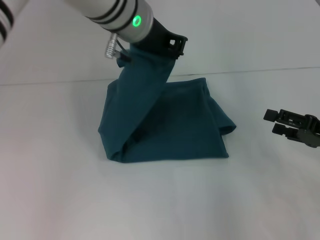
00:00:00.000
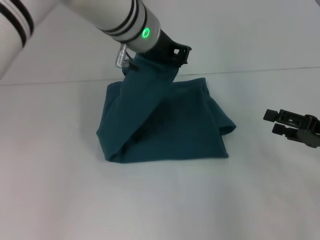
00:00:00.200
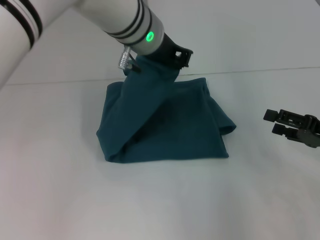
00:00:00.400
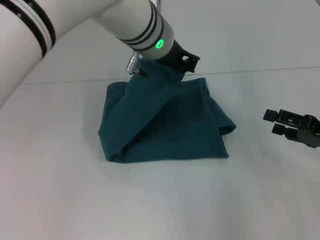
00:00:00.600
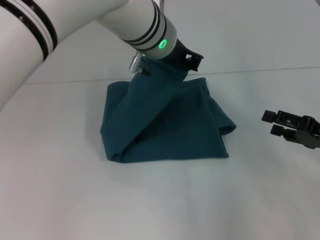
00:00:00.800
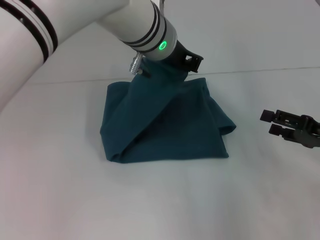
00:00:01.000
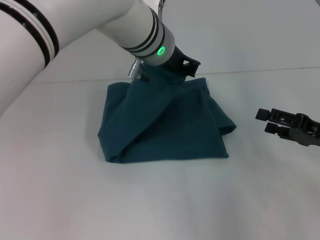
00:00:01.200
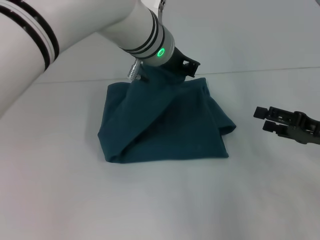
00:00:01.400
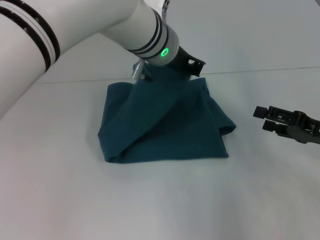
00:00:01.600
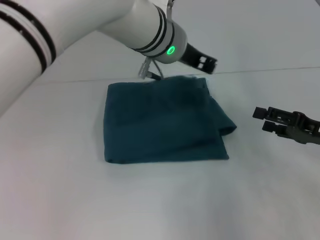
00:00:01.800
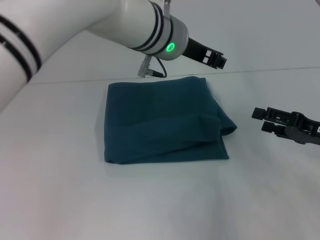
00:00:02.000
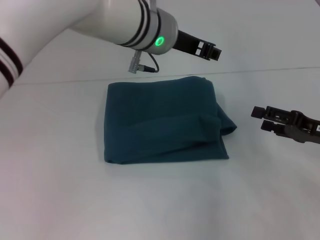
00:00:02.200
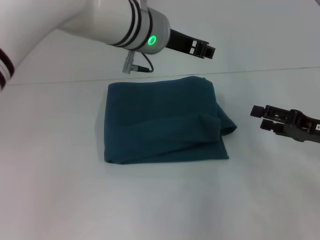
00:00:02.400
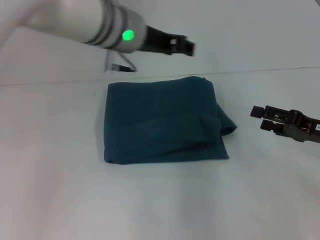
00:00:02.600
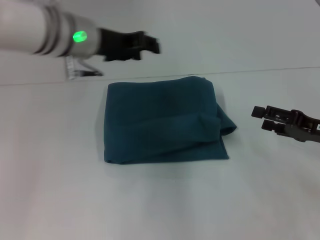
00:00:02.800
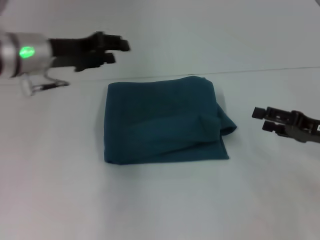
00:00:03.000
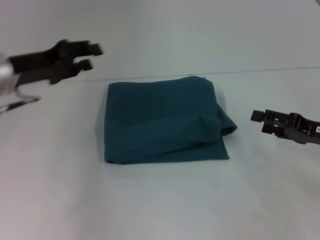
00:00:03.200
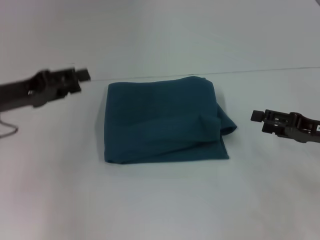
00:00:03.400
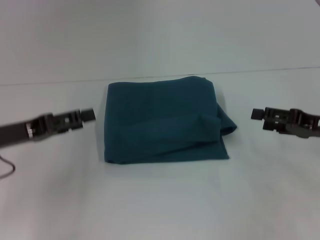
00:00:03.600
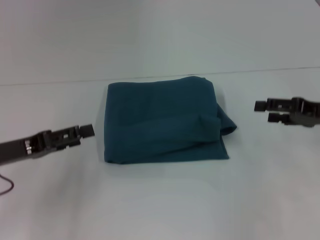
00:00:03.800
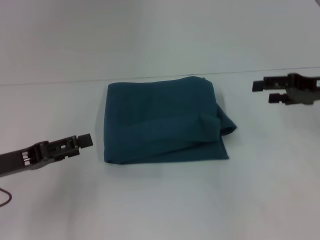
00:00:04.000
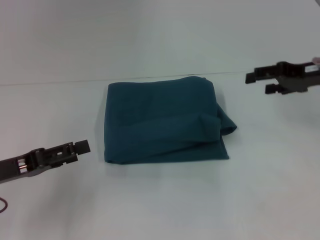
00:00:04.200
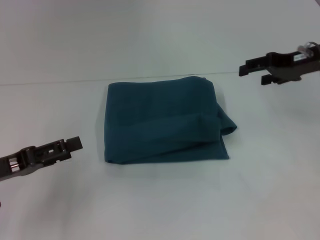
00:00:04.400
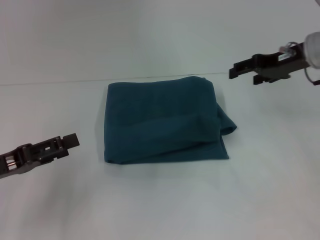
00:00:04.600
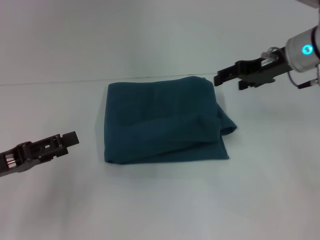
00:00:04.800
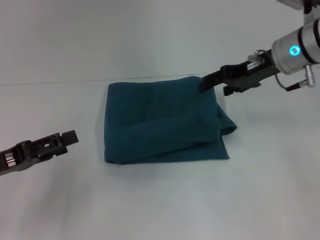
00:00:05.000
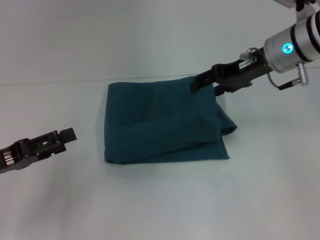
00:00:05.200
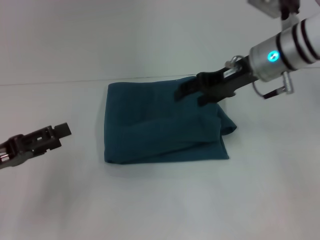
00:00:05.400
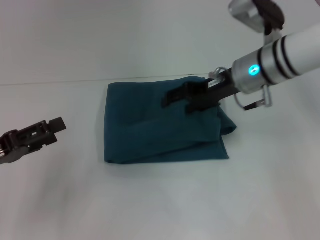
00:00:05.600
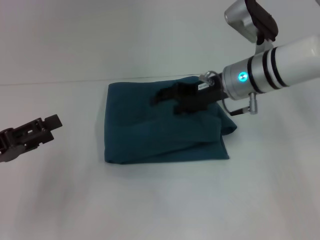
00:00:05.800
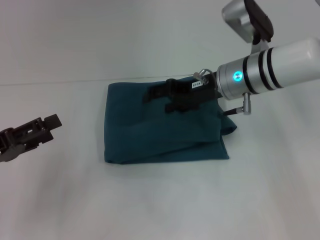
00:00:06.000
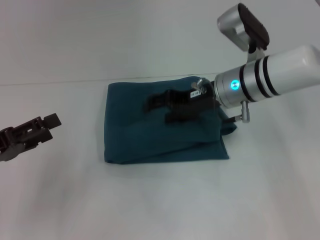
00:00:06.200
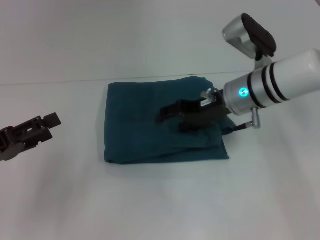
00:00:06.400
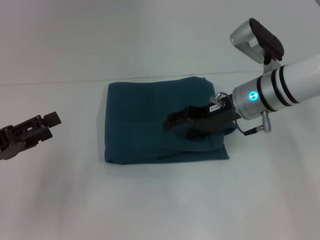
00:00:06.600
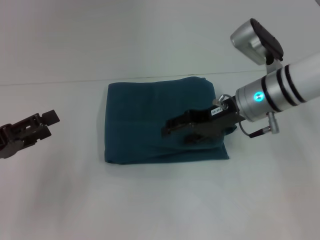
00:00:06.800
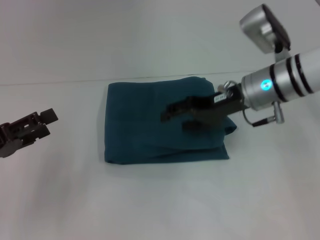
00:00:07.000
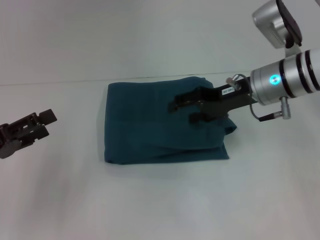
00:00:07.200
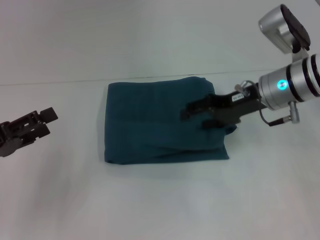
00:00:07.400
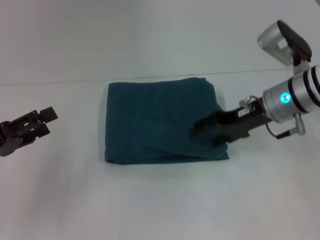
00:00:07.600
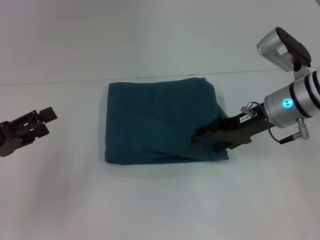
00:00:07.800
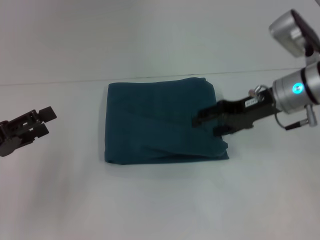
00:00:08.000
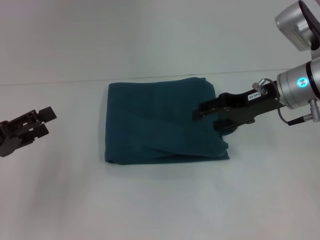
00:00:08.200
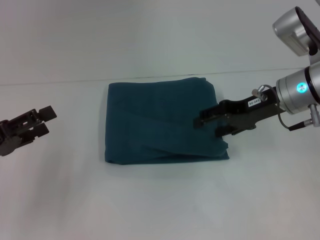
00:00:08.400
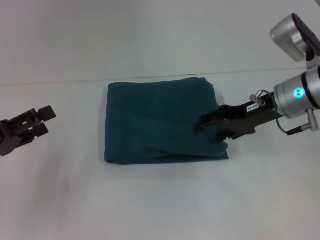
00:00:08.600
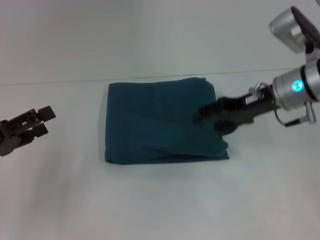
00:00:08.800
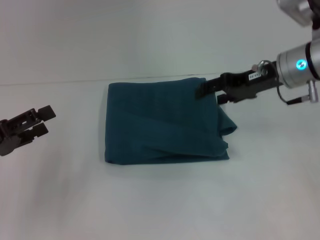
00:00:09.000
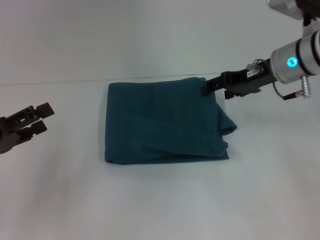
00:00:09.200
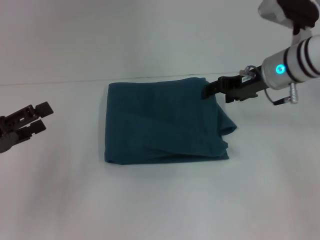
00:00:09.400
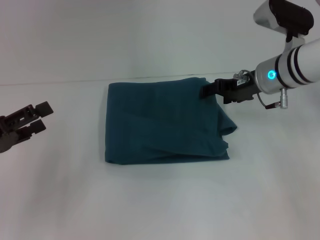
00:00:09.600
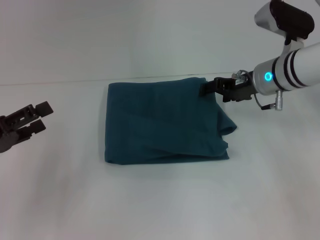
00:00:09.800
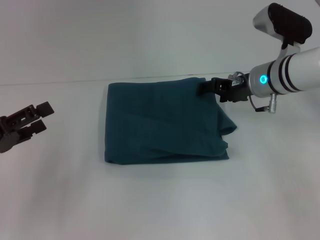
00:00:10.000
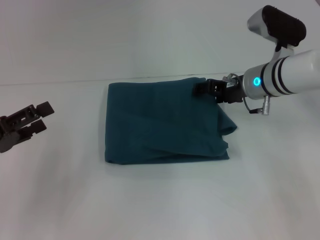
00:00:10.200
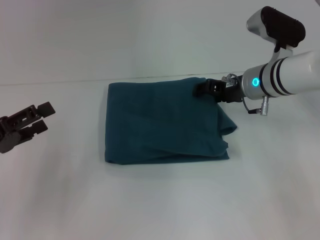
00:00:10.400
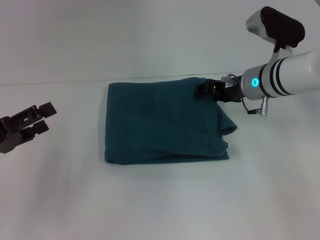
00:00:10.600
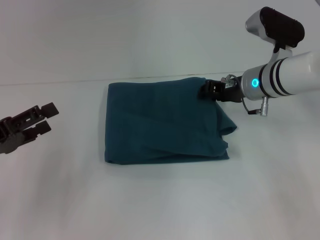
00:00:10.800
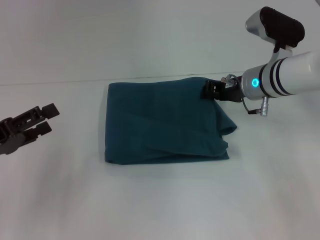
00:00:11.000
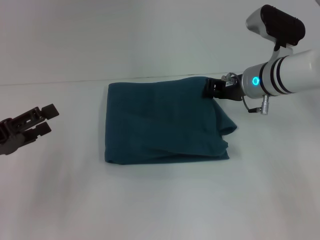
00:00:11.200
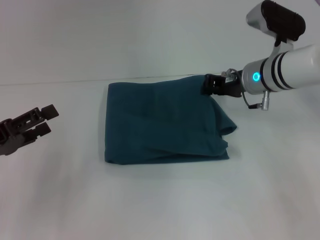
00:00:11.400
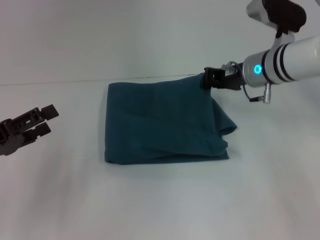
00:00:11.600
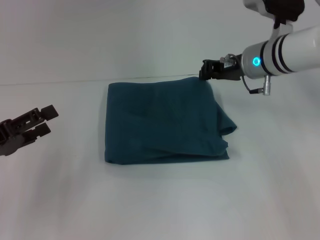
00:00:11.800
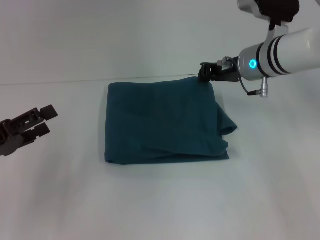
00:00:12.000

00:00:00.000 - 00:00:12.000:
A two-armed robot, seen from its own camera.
Step, 00:00:00.000 - 00:00:02.000: Fold the clothes to the left.
00:00:00.000 - 00:00:01.600: The left gripper changes place by some 5 cm.
00:00:01.600 - 00:00:03.000: The left gripper travels to the left by about 20 cm, and opens its fingers.
00:00:03.000 - 00:00:04.400: The left gripper travels backward, to the left and downward by approximately 20 cm, and opens. The right gripper travels forward and upward by approximately 15 cm.
00:00:04.400 - 00:00:06.000: The right gripper is displaced to the left by about 15 cm.
00:00:06.000 - 00:00:07.600: The right gripper travels to the right by some 5 cm.
00:00:07.600 - 00:00:09.000: The right gripper ends up some 5 cm from where it was.
00:00:09.000 - 00:00:10.400: The right gripper shifts roughly 5 cm downward.
00:00:10.400 - 00:00:12.000: The right gripper closes.

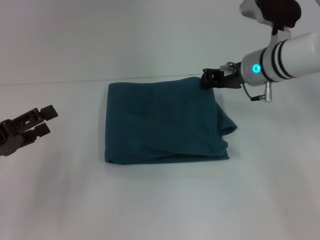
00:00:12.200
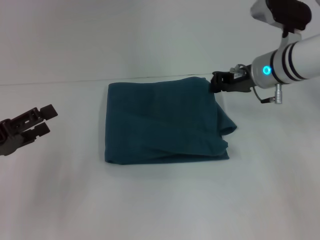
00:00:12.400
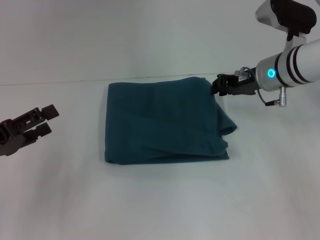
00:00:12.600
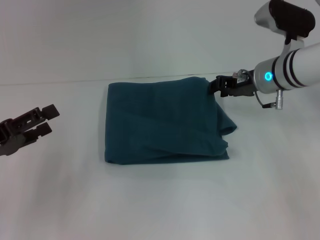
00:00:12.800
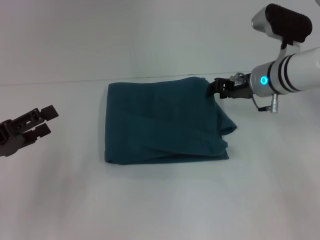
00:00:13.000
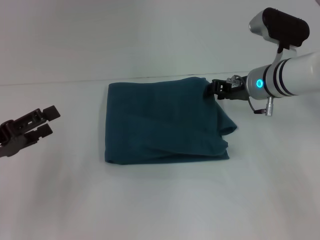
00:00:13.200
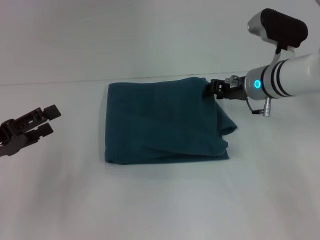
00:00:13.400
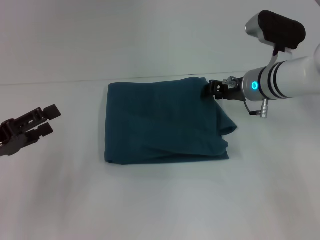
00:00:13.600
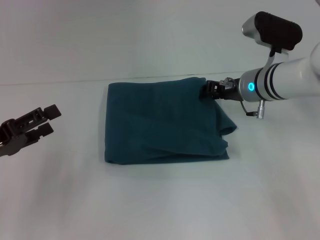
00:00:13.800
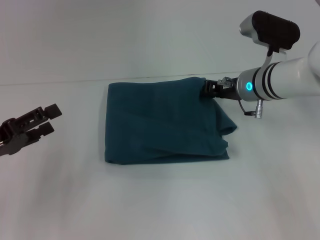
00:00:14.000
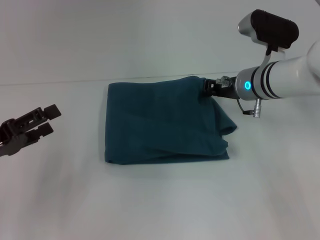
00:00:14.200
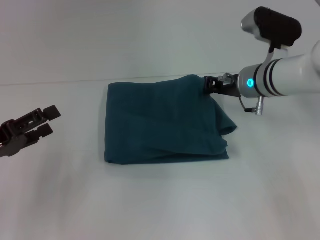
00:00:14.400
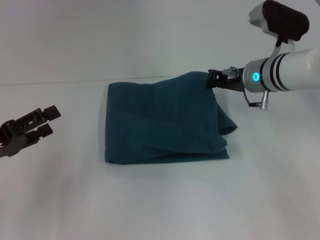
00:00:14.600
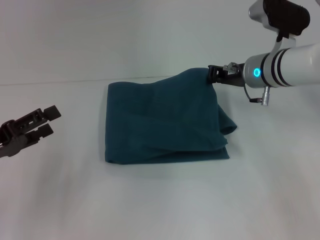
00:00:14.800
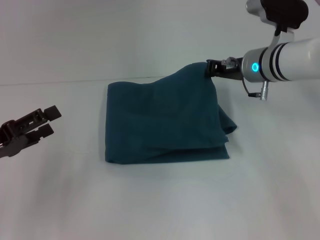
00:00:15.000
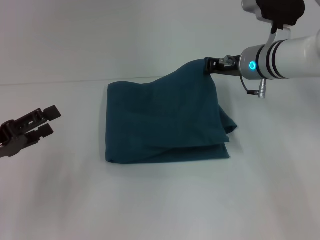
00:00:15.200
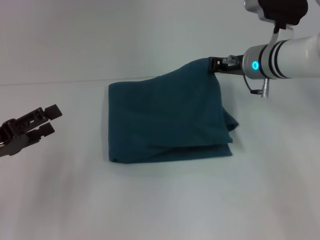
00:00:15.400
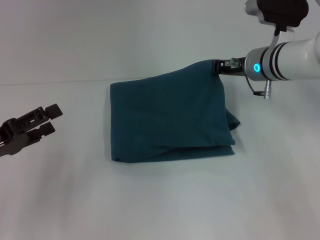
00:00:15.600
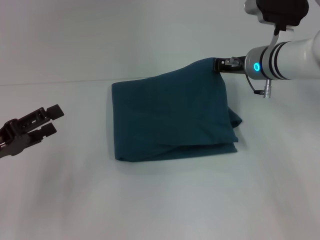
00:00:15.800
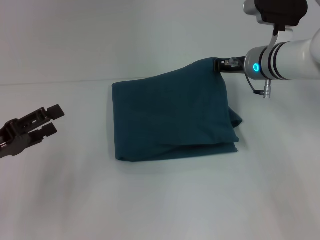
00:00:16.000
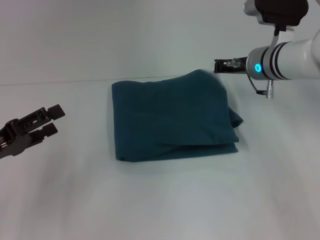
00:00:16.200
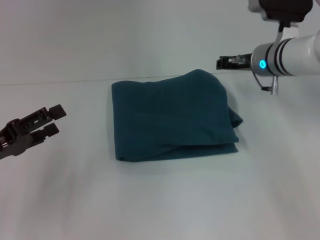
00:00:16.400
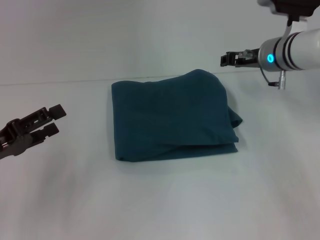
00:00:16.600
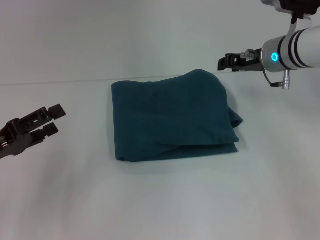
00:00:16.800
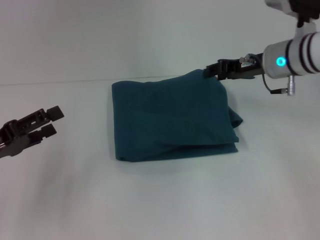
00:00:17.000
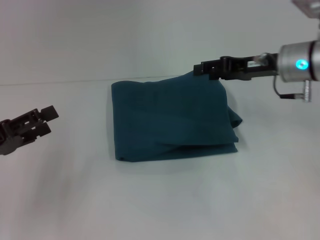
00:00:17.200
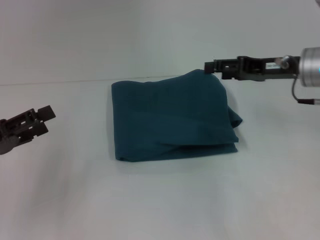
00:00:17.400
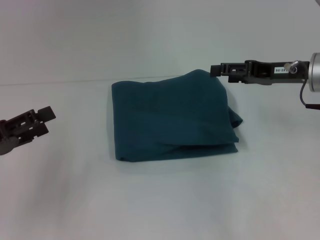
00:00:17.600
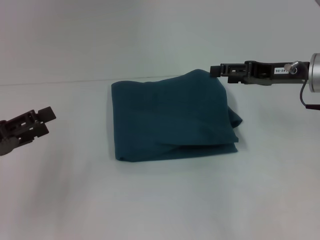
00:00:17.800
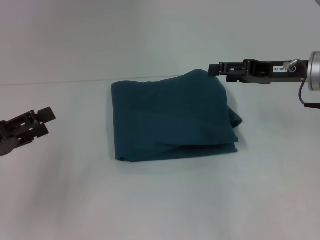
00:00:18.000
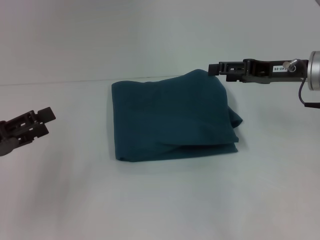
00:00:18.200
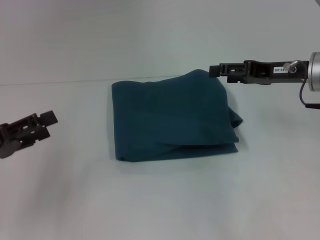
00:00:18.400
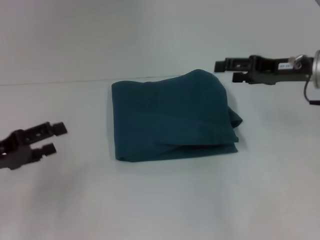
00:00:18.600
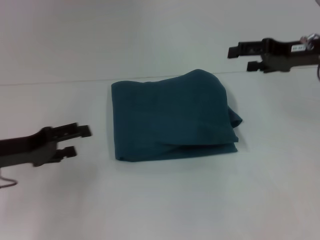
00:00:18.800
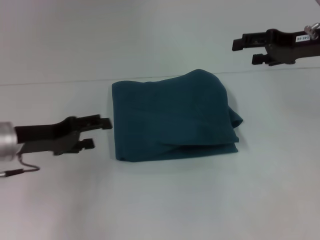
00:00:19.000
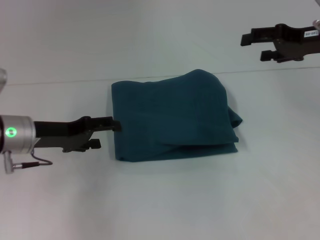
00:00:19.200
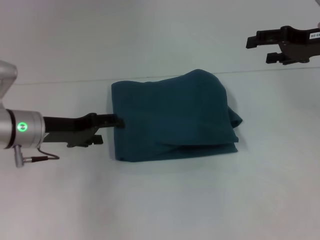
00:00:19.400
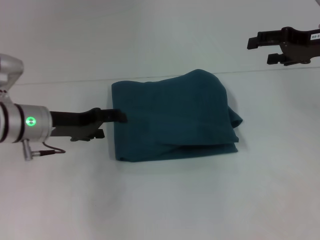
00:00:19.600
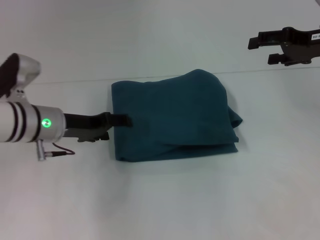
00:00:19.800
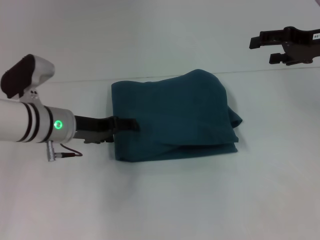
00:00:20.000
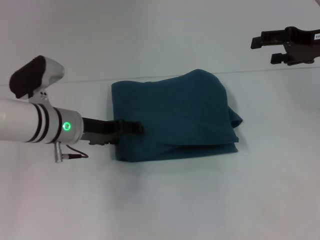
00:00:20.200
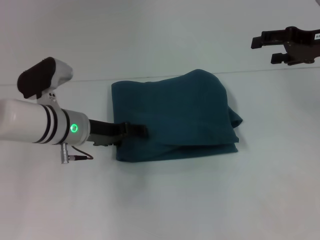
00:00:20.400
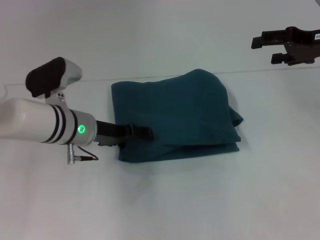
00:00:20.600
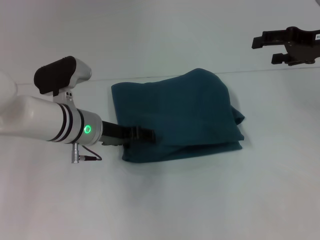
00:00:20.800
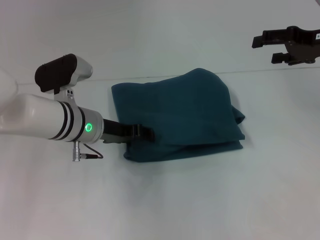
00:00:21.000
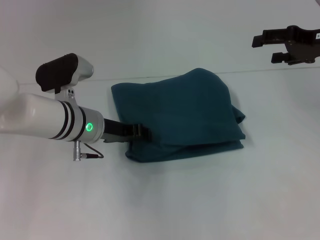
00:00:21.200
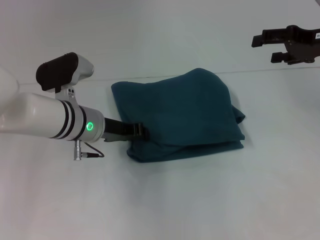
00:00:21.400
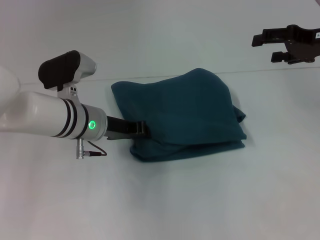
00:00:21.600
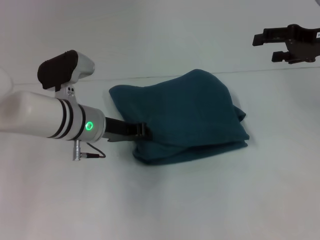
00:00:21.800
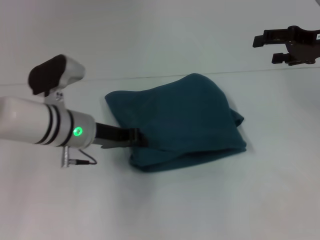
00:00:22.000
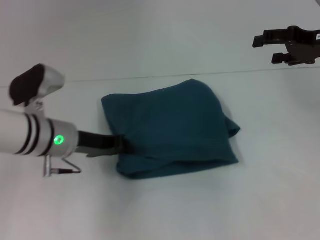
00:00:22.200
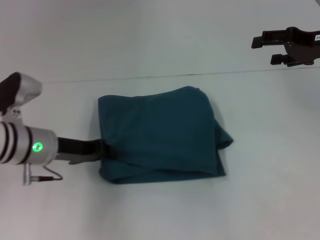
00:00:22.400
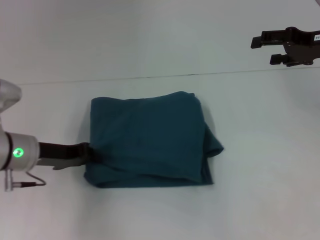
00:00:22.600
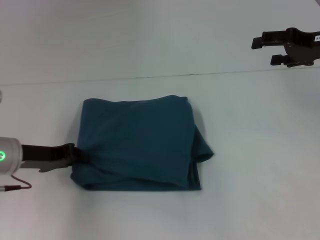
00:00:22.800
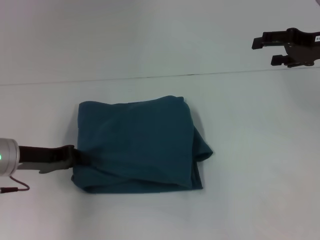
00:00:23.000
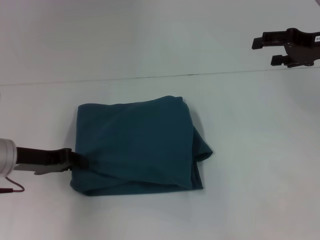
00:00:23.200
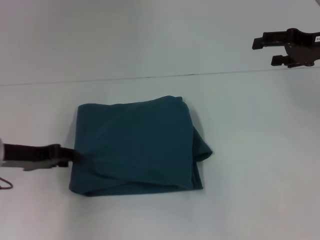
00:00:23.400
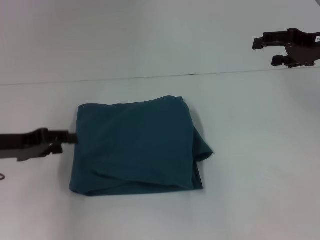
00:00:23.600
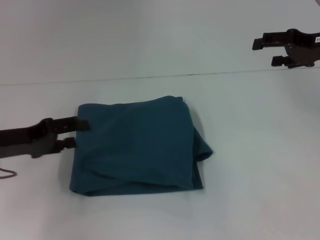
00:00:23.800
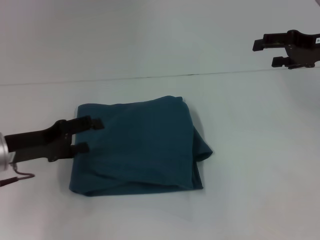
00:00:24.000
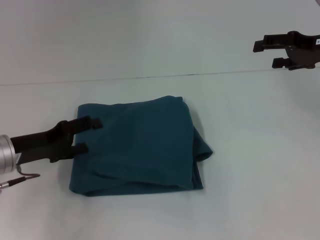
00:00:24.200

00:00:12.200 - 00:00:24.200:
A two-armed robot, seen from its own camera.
00:00:12.200 - 00:00:13.800: There are only small adjustments of the grippers.
00:00:13.800 - 00:00:15.200: The right gripper closes its fingers.
00:00:15.200 - 00:00:16.600: There are only small adjustments of the grippers.
00:00:16.600 - 00:00:18.200: The right gripper is displaced backward and to the right by some 10 cm, and opens its fingers.
00:00:18.200 - 00:00:19.800: The left gripper goes some 15 cm to the right and forward; the right gripper shifts by about 5 cm.
00:00:19.800 - 00:00:21.200: The left gripper moves to the right, approximately 5 cm, and closes.
00:00:21.200 - 00:00:22.600: The left gripper goes some 10 cm to the left, and closes.
00:00:22.600 - 00:00:24.200: The left gripper opens its fingers.
